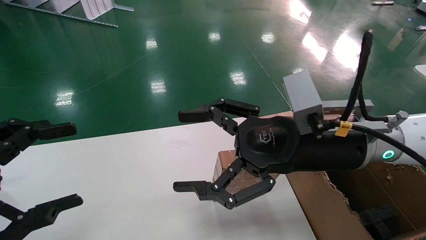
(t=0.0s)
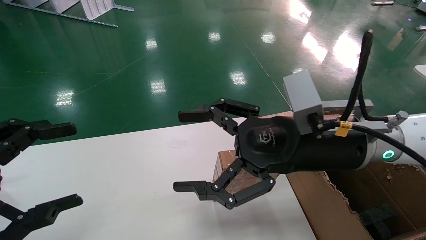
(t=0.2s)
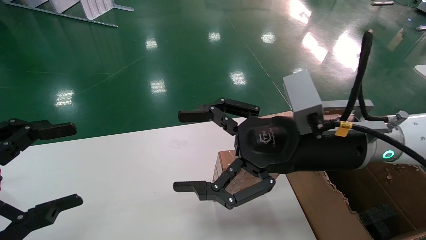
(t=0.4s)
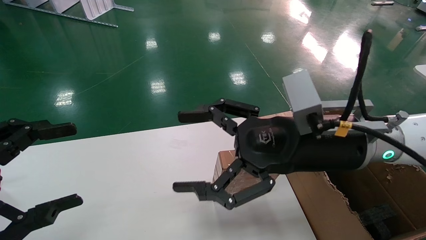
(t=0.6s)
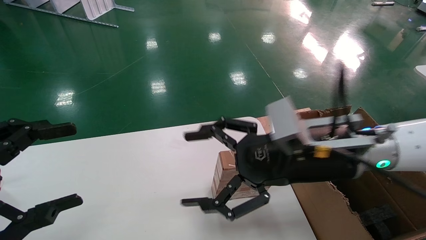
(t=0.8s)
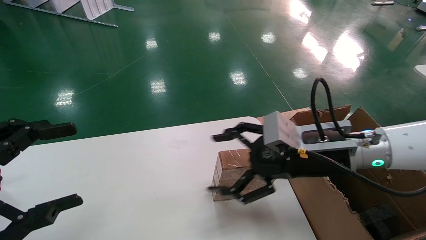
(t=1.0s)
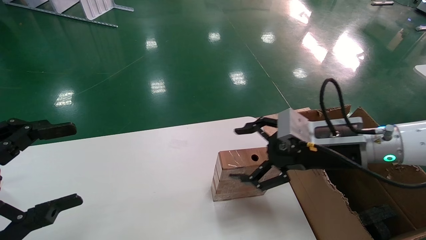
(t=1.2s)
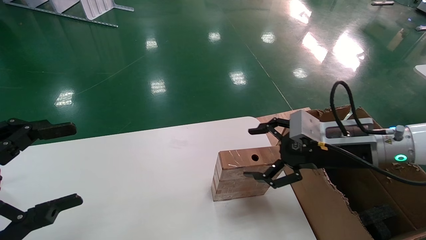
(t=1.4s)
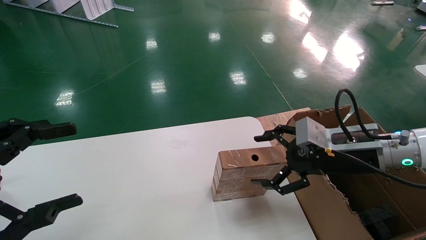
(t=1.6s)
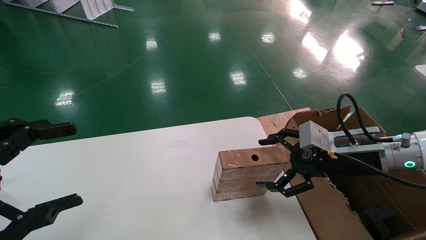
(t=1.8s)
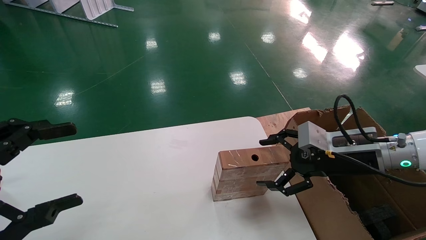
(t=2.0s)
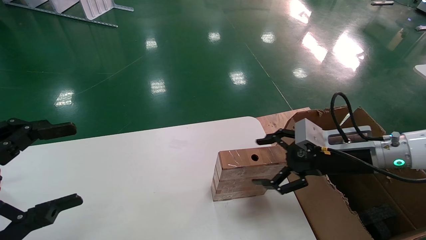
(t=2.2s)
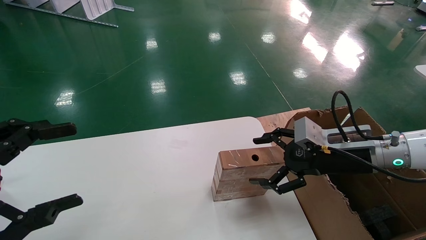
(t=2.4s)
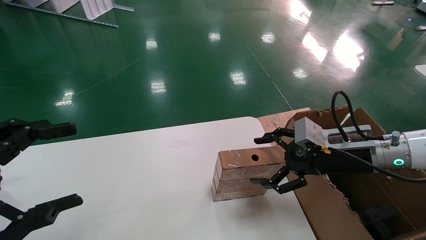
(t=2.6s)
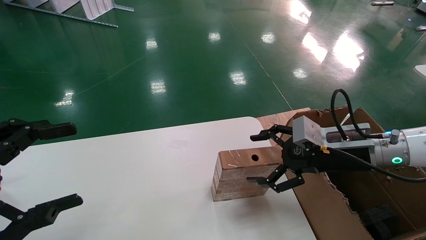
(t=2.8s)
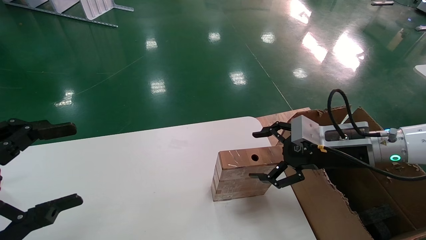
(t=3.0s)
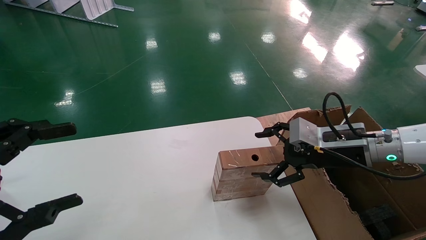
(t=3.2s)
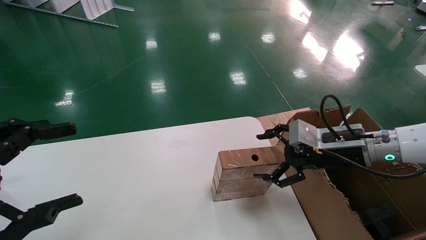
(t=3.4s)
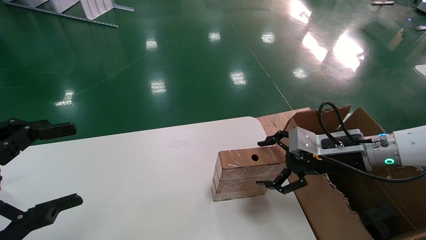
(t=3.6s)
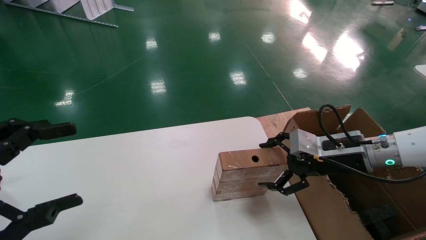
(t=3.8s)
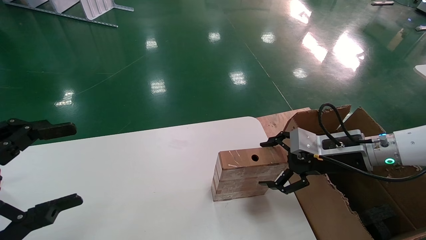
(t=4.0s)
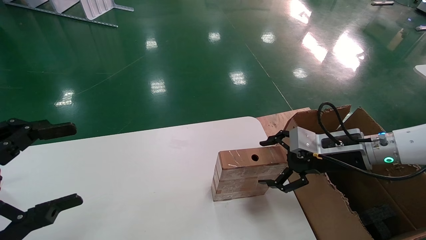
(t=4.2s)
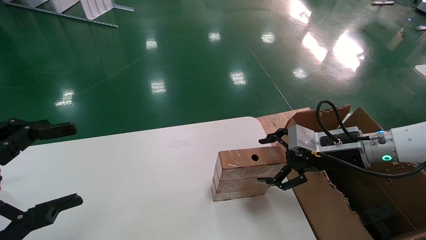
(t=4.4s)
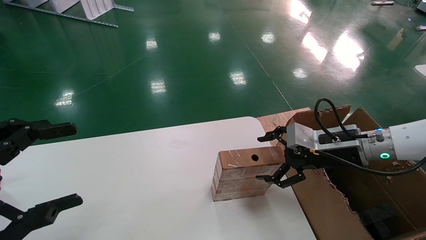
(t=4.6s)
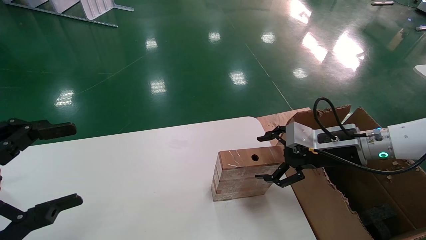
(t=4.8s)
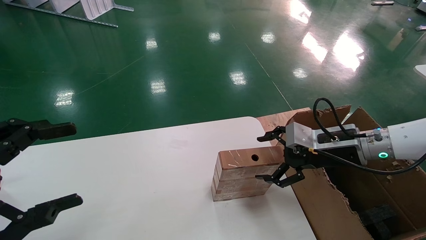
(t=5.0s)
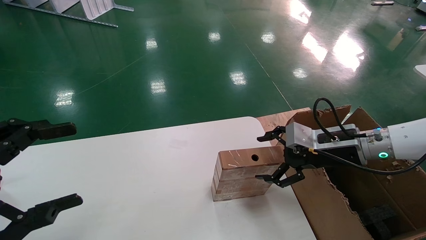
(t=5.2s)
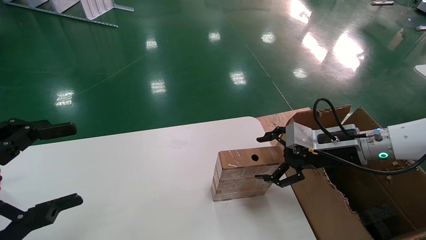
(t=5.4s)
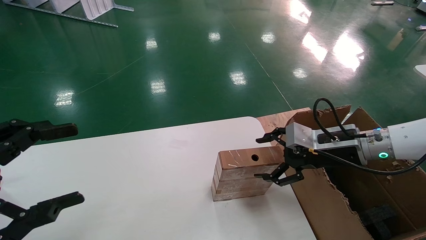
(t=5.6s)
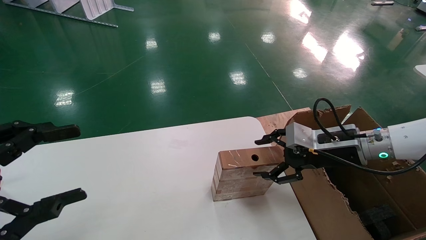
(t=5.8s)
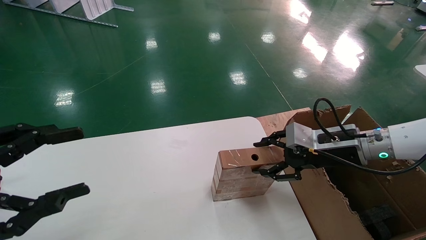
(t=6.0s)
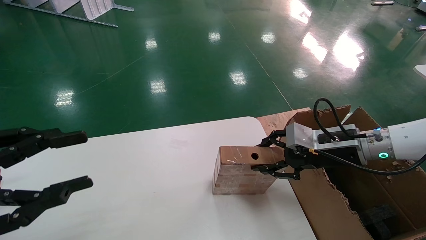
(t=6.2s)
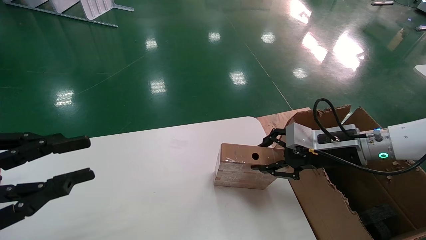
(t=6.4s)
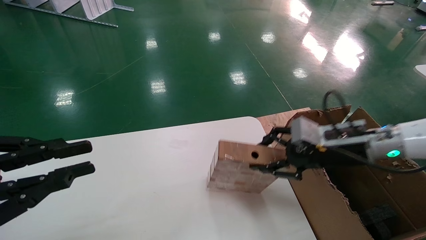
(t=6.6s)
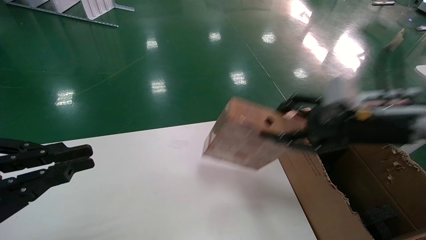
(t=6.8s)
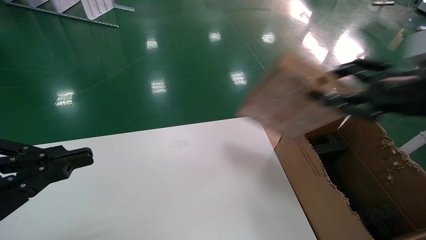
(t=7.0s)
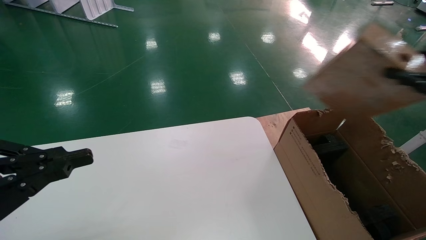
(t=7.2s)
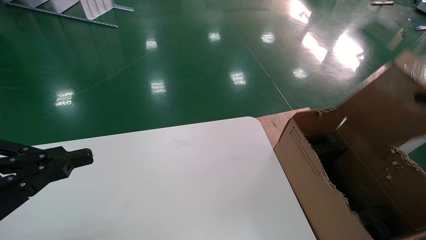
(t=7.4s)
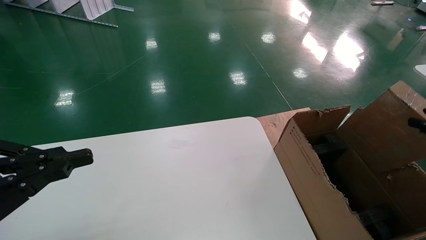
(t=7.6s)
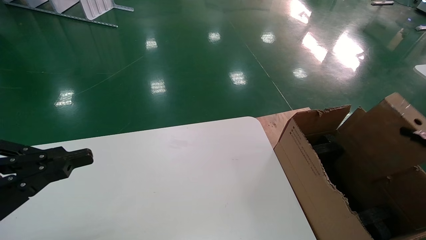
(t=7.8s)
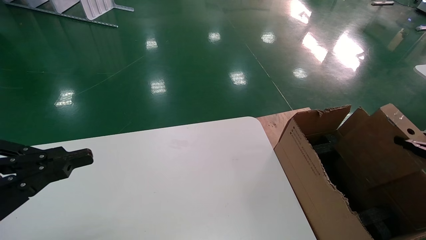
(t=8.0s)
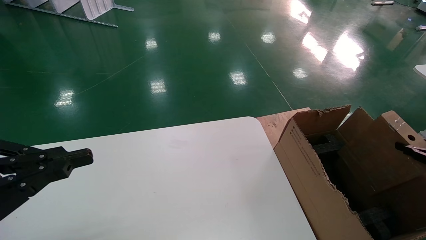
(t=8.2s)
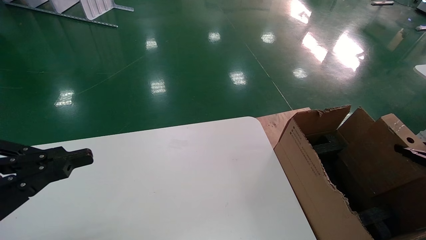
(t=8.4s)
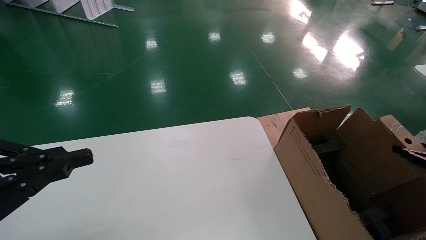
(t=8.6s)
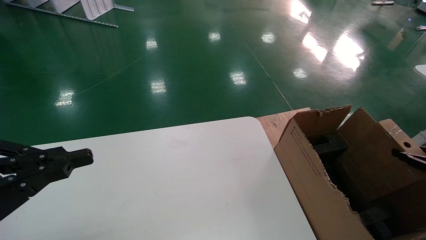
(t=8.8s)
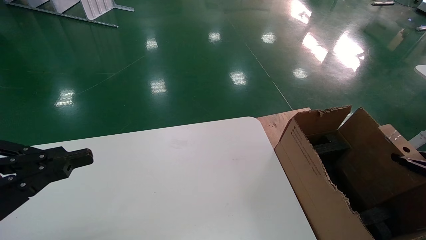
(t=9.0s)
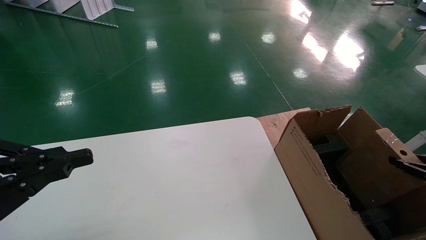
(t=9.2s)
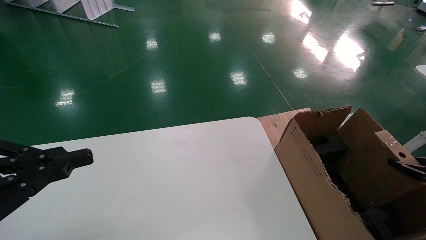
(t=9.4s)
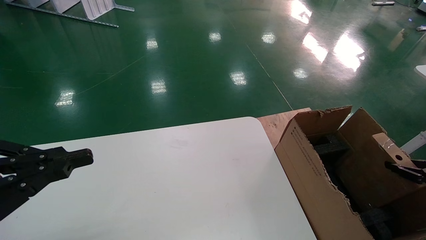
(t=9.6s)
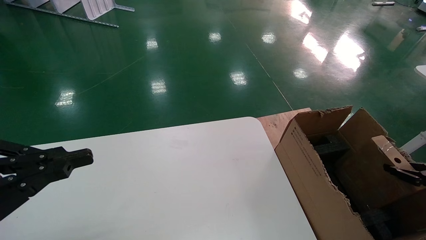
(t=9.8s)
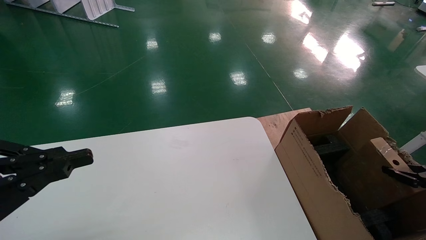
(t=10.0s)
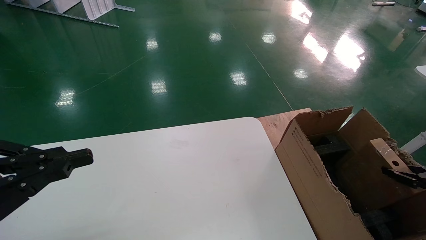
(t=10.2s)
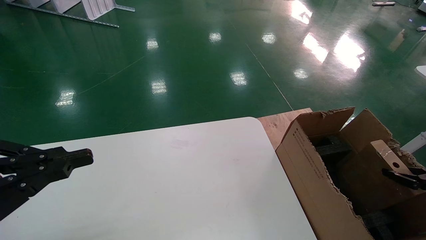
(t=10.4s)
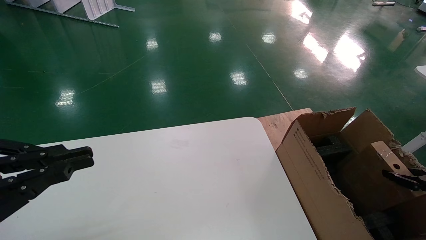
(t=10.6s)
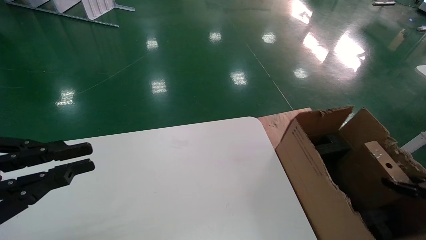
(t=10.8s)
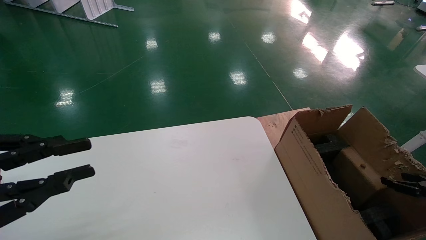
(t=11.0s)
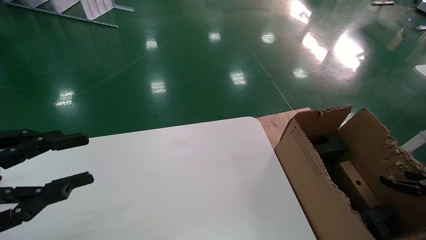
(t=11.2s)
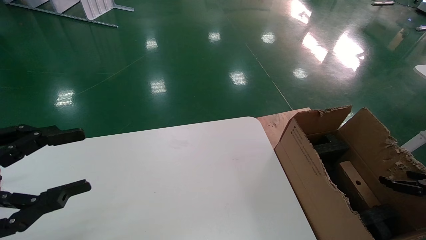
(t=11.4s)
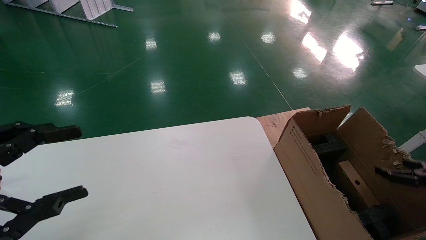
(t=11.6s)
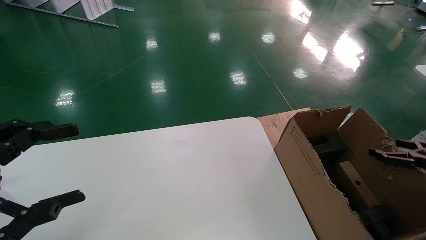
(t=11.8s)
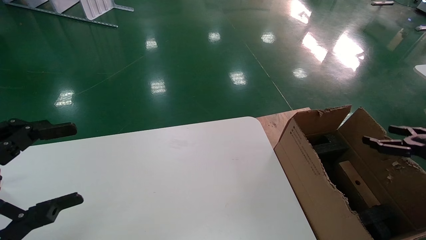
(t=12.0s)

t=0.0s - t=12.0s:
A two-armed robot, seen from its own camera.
Task of the whole recording: put the box on the table into the big box.
Step, t=1.2s - t=6.2s: Pick up the mouse and the power cord paper box.
Step, t=6.4s - t=11.0s: Place the mouse and the power cord paper box into the container.
t=0.0s - t=1.6s: The right gripper goes approximately 15 cm to the right and downward.
t=1.6s - t=4.4s: There are only small adjustments of the grippers.
t=4.4s - t=6.0s: The right gripper closes up.
t=6.0s - t=7.6s: The right gripper is displaced to the right and backward by some 30 cm, and closes. The left gripper closes.
t=7.6s - t=9.0s: The right gripper is displaced downward by approximately 10 cm.
t=9.0s - t=10.4s: The grippers make only small movements.
t=10.4s - t=12.0s: The right gripper heads upward, covering some 10 cm, and opens; the left gripper opens.

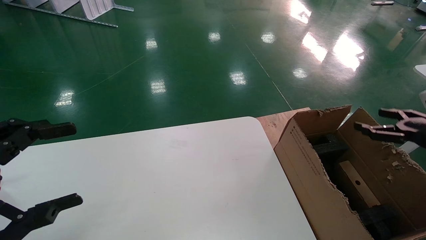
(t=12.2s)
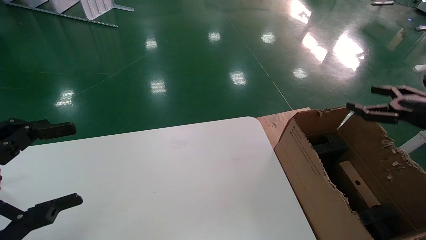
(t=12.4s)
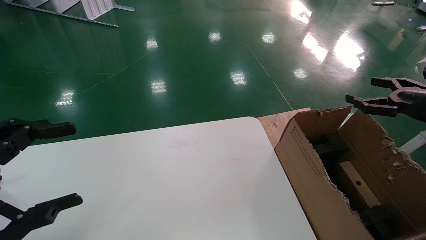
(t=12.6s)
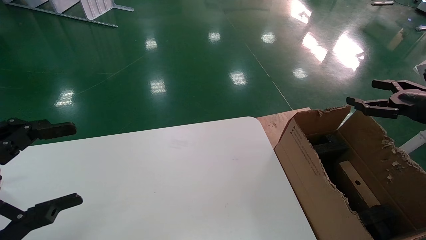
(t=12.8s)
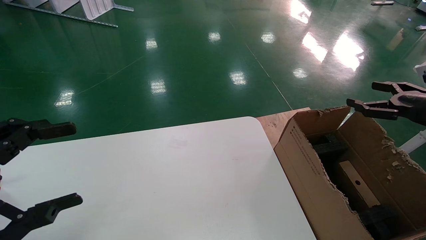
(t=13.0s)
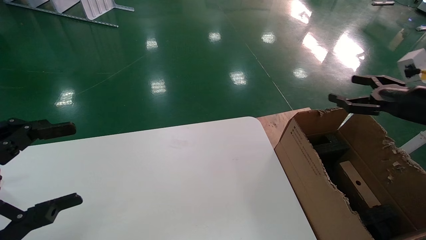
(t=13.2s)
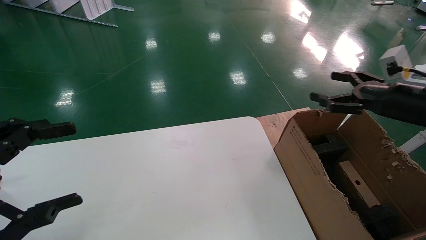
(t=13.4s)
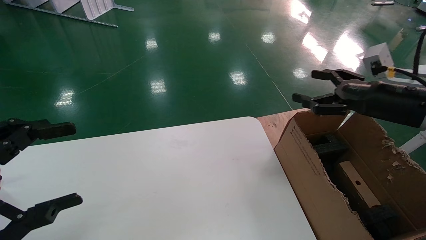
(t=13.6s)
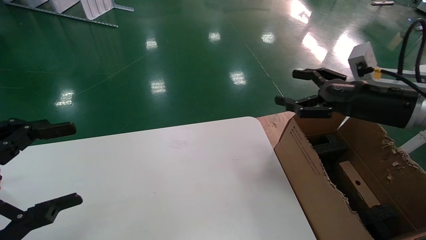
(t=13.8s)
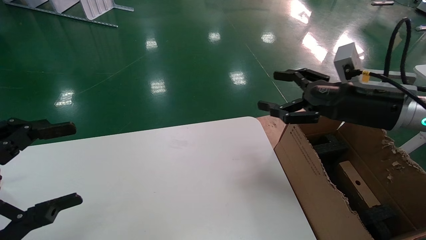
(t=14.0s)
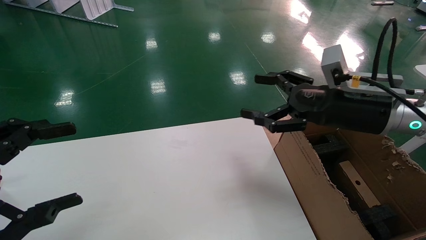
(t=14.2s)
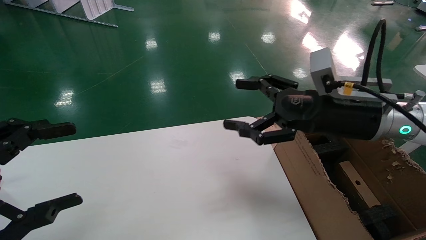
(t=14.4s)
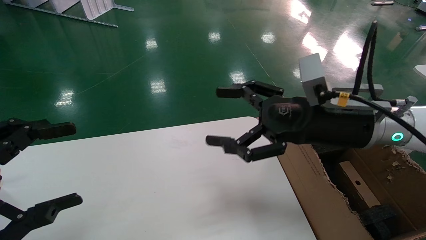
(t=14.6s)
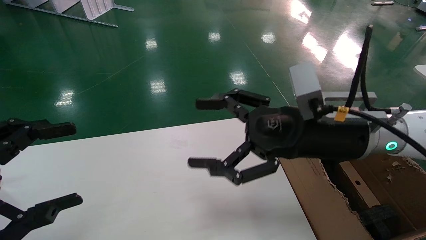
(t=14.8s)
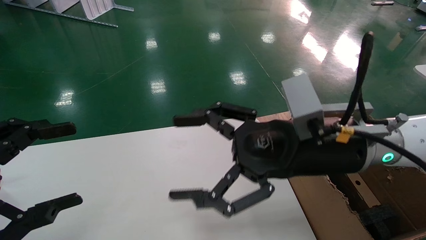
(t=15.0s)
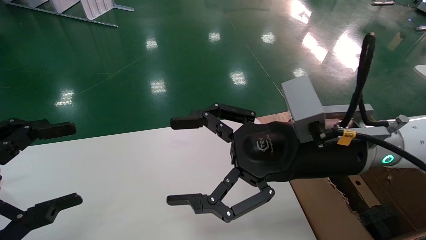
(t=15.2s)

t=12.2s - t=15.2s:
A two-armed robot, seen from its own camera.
Task of the whole recording: put the box on the table into the big box.
t=12.2s - t=13.8s: The right gripper heads to the left and upward, covering about 20 cm.
t=13.8s - t=15.2s: The right gripper is displaced to the left by some 20 cm.
